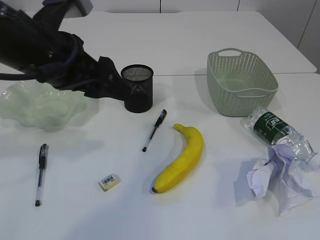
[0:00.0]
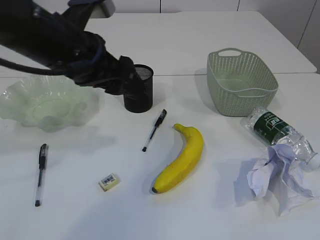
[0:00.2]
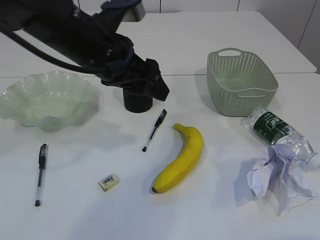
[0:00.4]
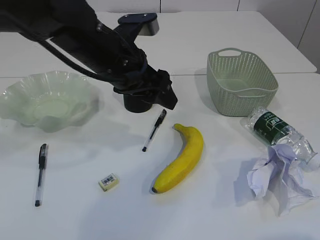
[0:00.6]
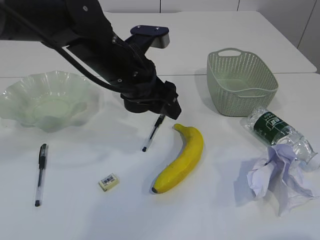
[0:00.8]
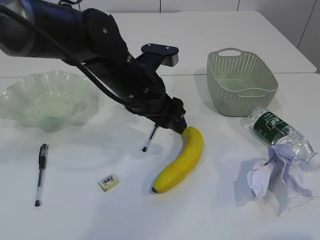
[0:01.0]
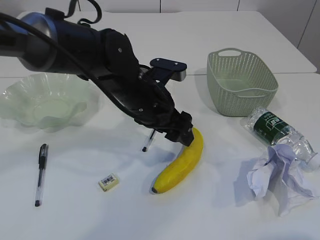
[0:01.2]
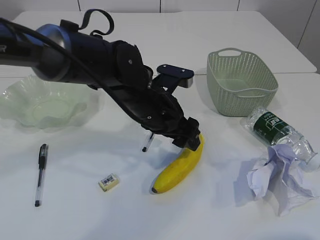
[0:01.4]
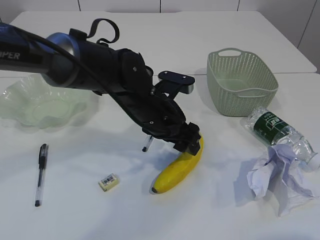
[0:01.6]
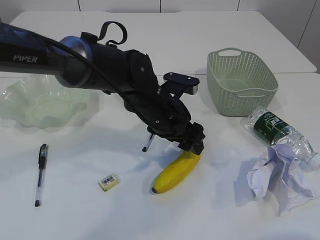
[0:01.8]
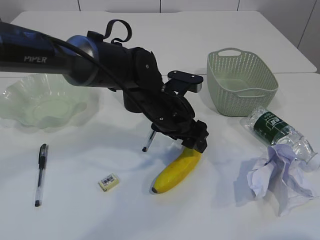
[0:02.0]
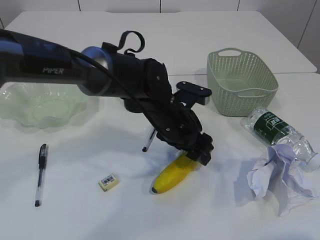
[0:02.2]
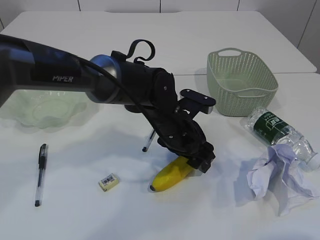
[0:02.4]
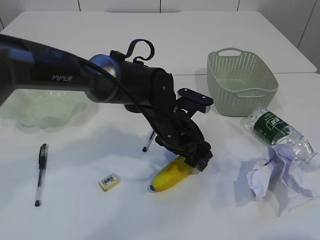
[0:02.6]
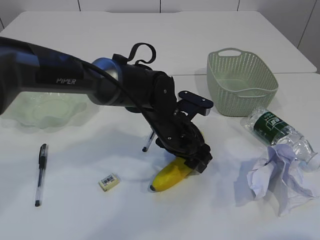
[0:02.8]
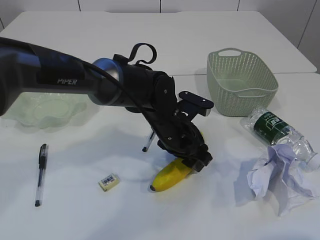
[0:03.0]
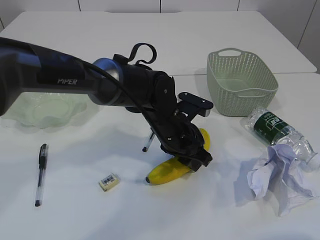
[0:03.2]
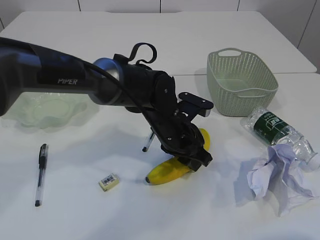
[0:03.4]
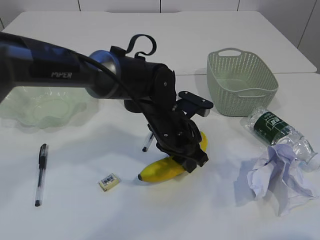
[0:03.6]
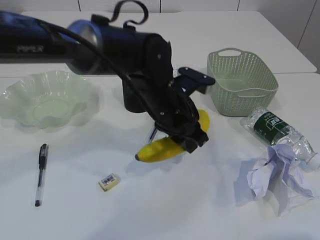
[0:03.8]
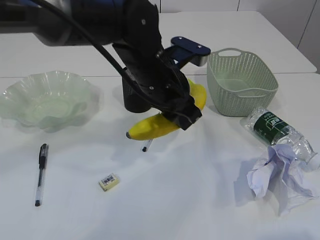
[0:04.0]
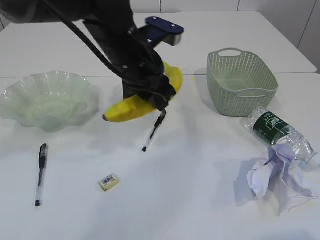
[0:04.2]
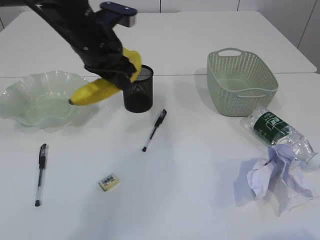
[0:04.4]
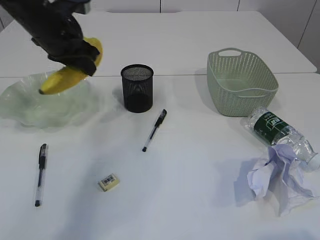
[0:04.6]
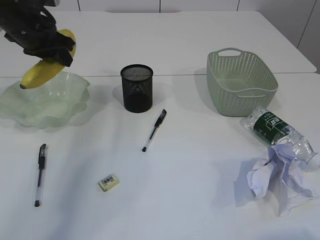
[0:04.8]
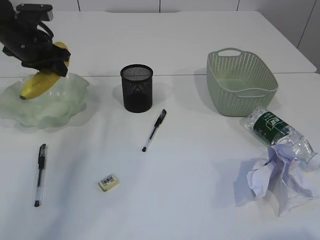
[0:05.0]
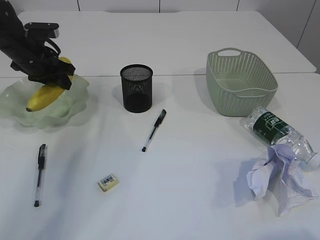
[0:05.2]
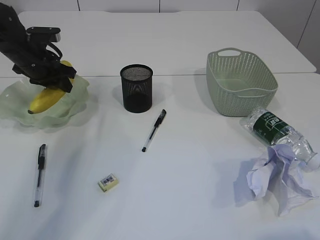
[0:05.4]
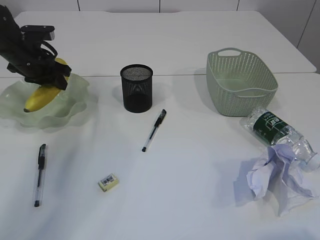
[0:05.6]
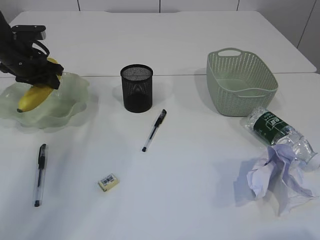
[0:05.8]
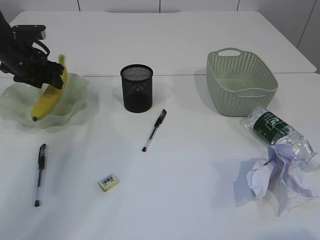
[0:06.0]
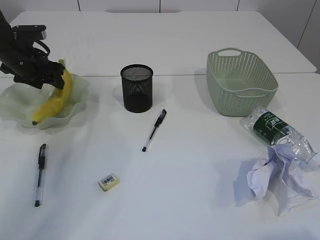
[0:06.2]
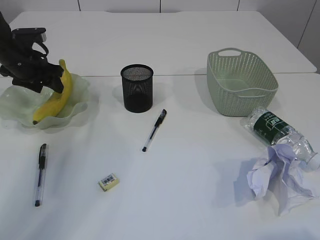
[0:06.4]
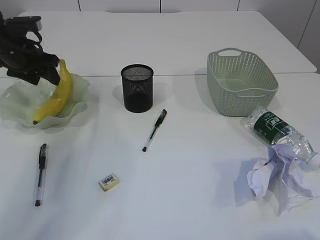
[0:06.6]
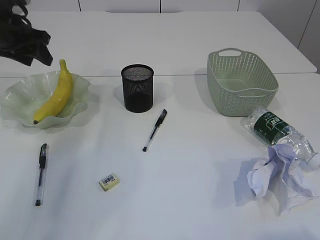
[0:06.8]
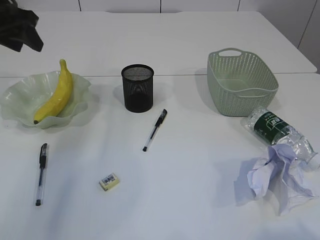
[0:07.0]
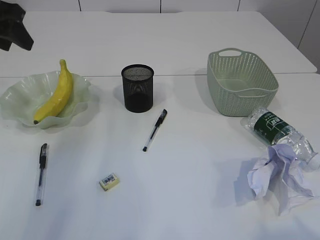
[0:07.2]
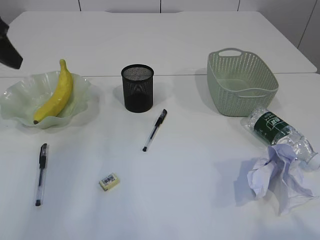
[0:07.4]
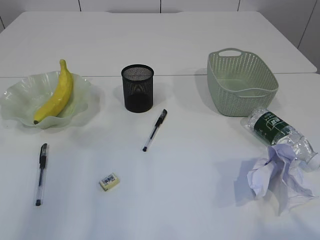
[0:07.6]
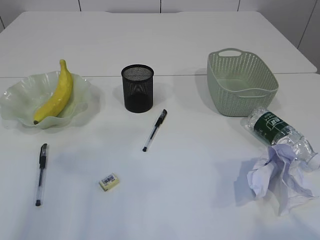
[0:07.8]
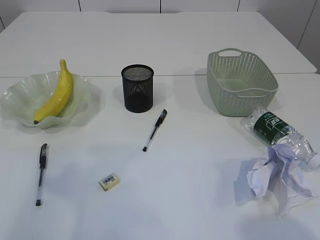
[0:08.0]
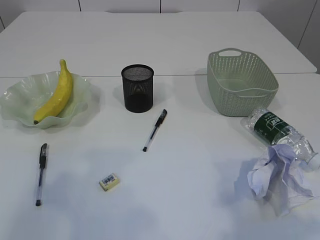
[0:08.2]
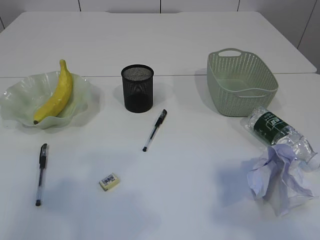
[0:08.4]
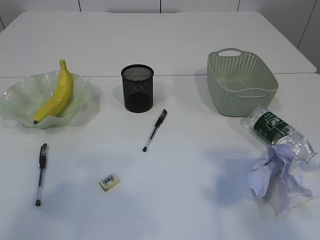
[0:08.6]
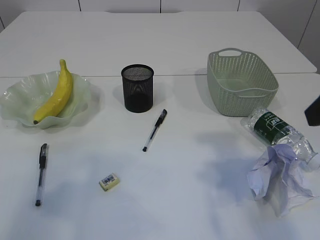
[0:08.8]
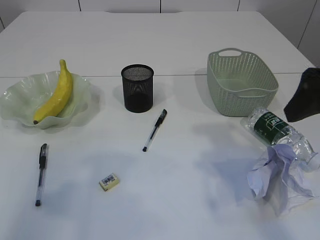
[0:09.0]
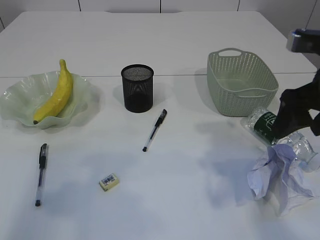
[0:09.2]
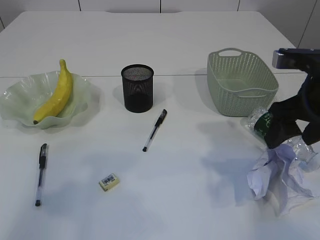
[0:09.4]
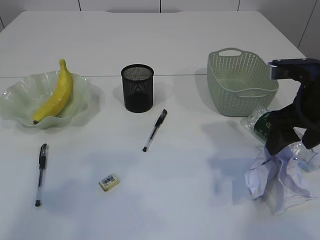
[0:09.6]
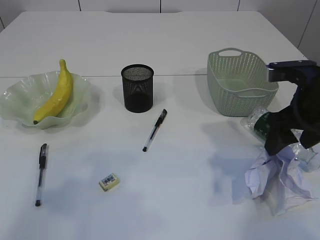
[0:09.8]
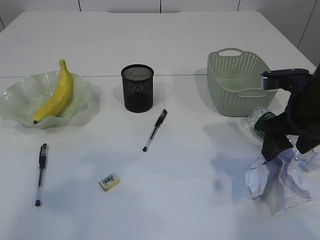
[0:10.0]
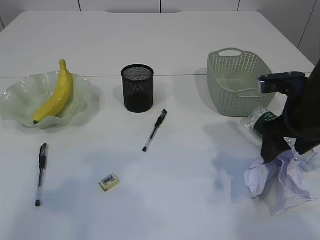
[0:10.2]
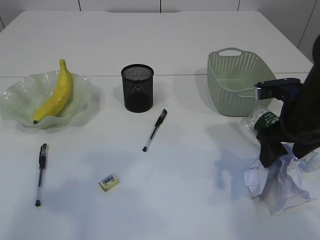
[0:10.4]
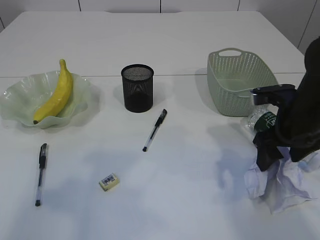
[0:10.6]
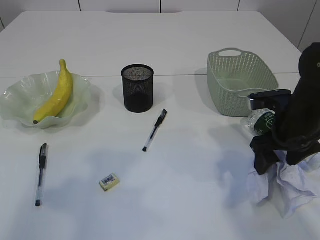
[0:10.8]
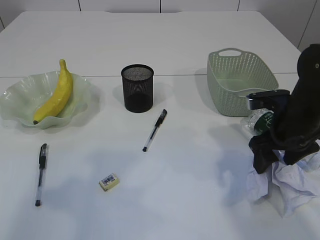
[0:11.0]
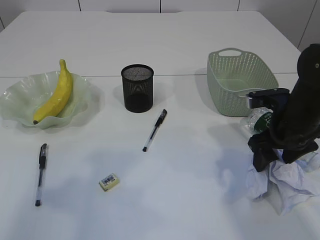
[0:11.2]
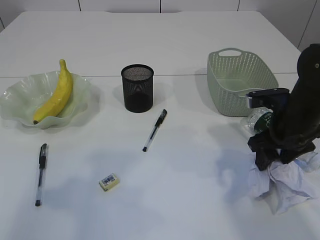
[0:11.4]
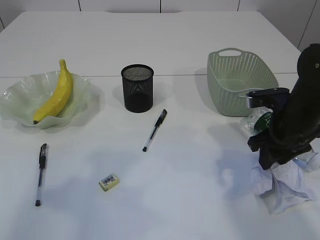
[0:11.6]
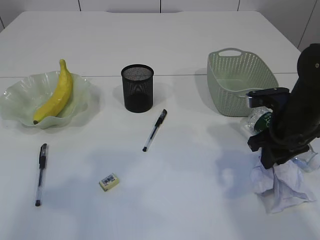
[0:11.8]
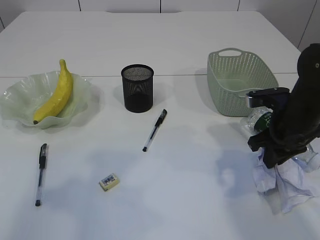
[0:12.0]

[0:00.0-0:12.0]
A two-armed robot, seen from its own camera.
Step, 0:04.2 to 0:06.6: Place the banana in the plate.
0:00.0 to 0:01.6: The left gripper moves downward, to the right and forward, roughly 20 cm.
0:01.6 to 0:03.0: The left gripper changes place by approximately 5 cm.
0:03.0 to 0:04.4: The left gripper heads upward and to the left, covering some 20 cm, and closes.
0:04.4 to 0:06.0: The left gripper shifts approximately 20 cm to the left and forward.
0:06.0 to 0:07.6: The left gripper moves backward and upward, about 30 cm.
0:07.6 to 0:09.0: The right gripper is displaced forward by about 20 cm, while the left gripper travels backward by some 15 cm.
0:09.0 to 0:10.4: The right gripper is displaced downward and forward by about 15 cm.
0:10.4 to 0:12.0: The right gripper closes.

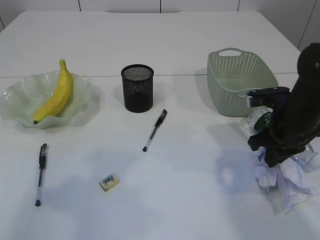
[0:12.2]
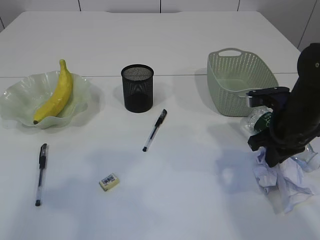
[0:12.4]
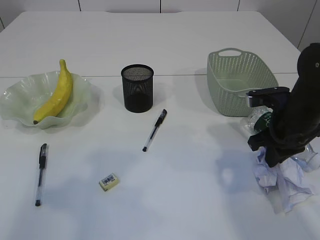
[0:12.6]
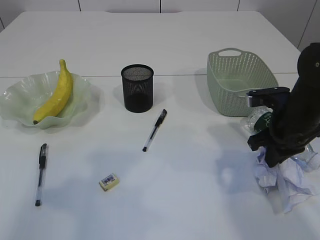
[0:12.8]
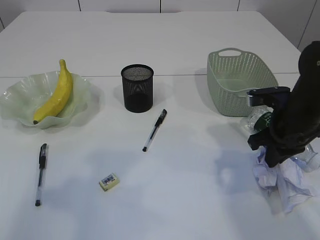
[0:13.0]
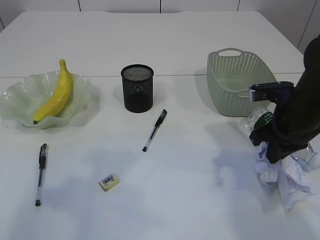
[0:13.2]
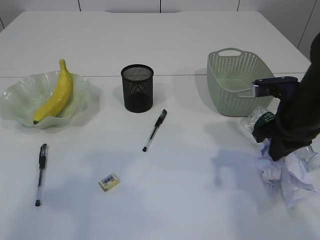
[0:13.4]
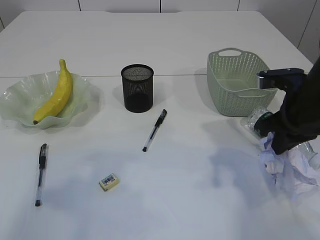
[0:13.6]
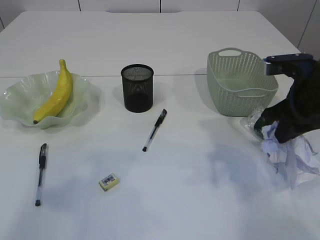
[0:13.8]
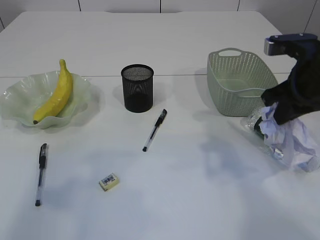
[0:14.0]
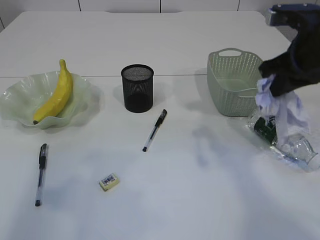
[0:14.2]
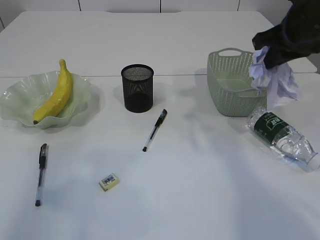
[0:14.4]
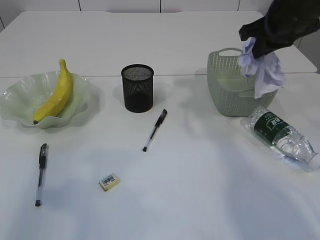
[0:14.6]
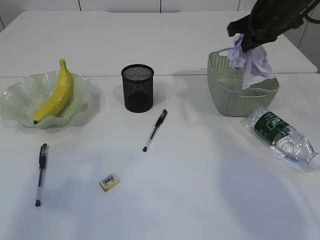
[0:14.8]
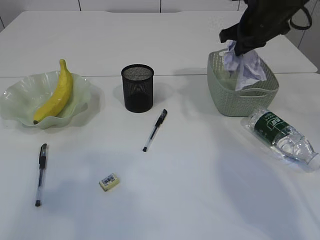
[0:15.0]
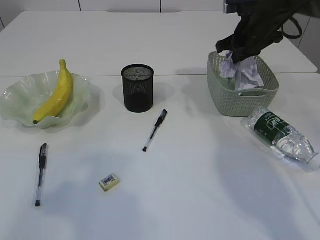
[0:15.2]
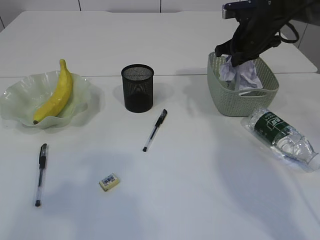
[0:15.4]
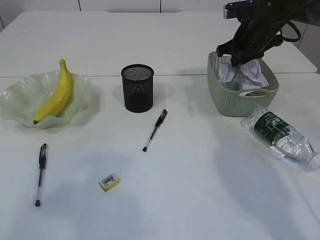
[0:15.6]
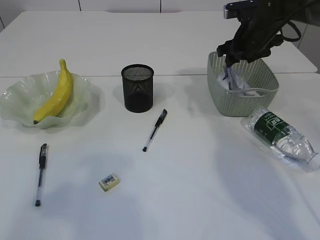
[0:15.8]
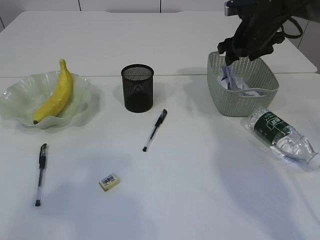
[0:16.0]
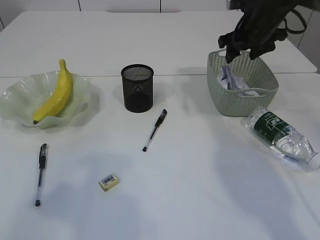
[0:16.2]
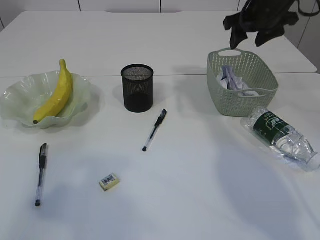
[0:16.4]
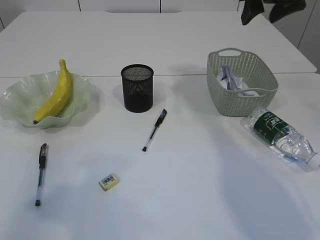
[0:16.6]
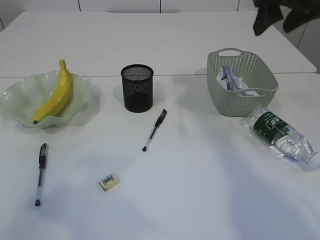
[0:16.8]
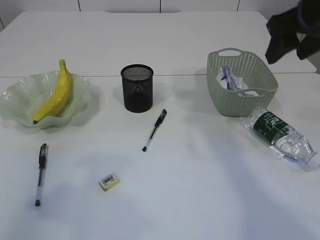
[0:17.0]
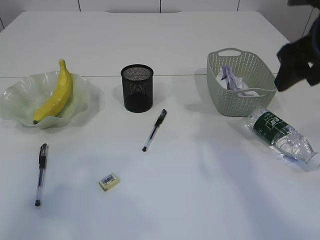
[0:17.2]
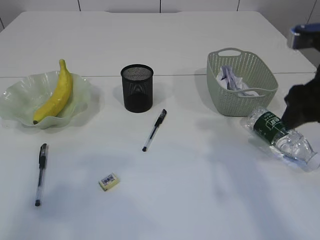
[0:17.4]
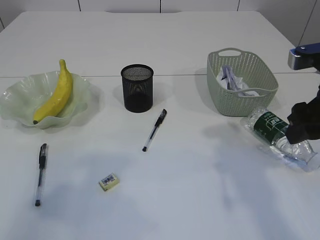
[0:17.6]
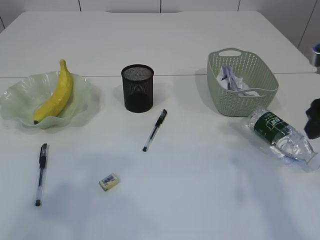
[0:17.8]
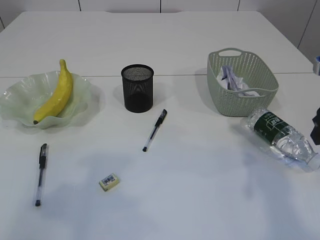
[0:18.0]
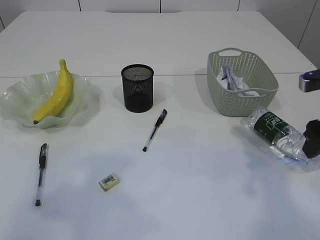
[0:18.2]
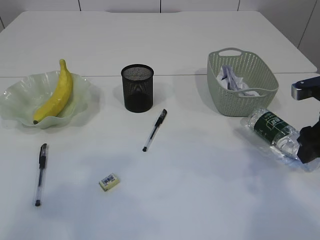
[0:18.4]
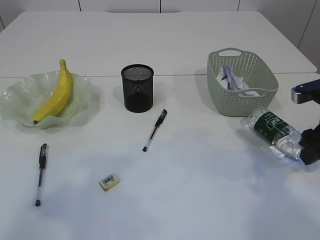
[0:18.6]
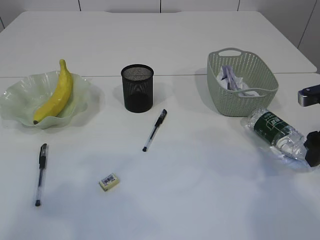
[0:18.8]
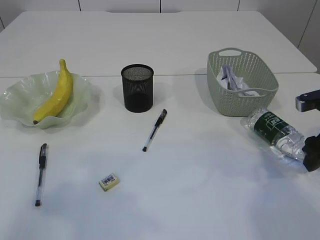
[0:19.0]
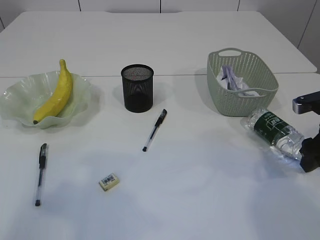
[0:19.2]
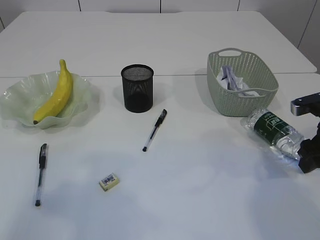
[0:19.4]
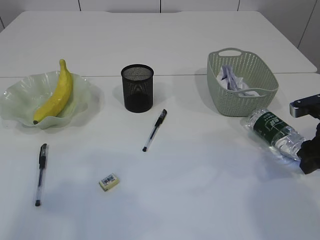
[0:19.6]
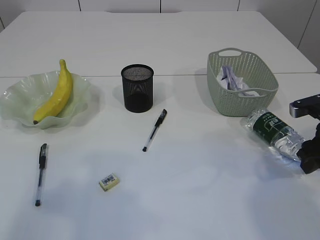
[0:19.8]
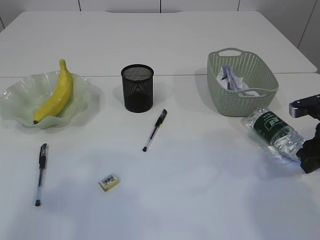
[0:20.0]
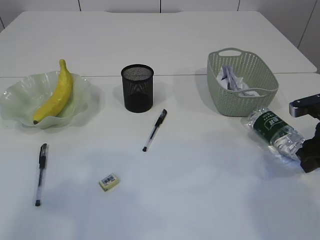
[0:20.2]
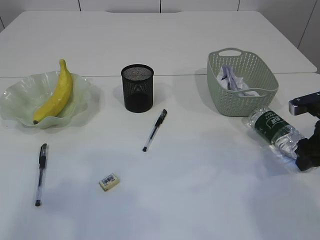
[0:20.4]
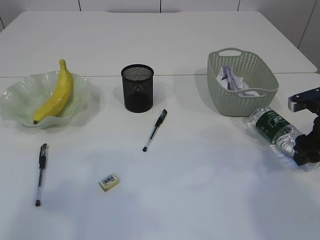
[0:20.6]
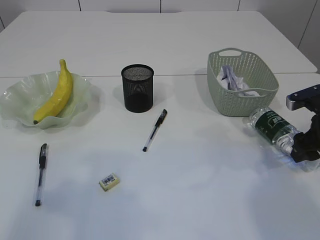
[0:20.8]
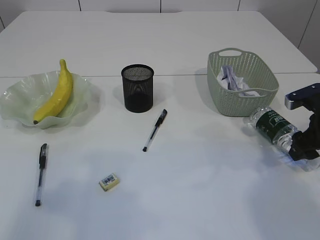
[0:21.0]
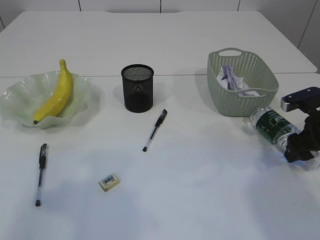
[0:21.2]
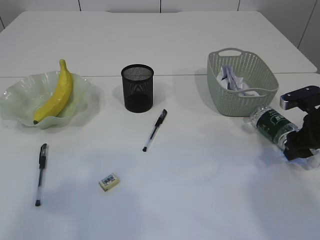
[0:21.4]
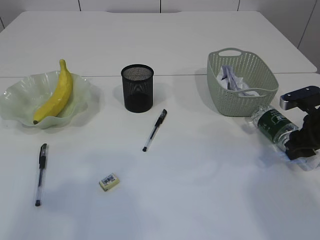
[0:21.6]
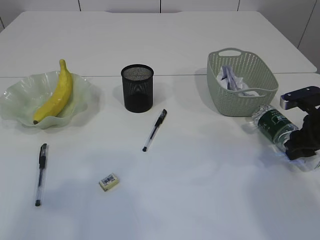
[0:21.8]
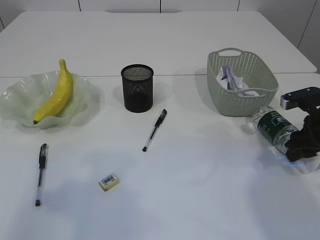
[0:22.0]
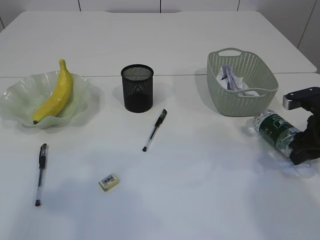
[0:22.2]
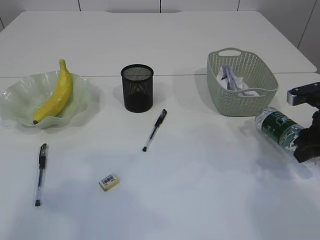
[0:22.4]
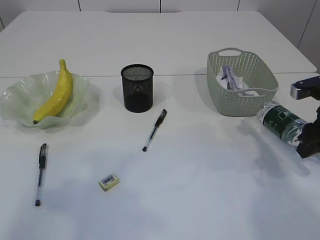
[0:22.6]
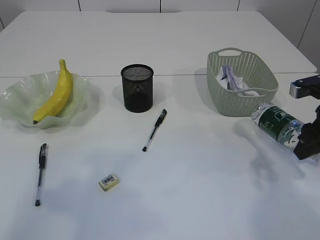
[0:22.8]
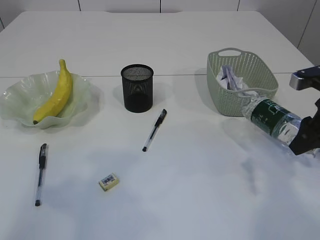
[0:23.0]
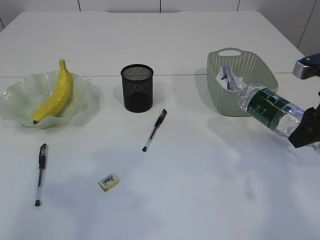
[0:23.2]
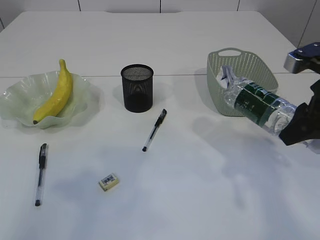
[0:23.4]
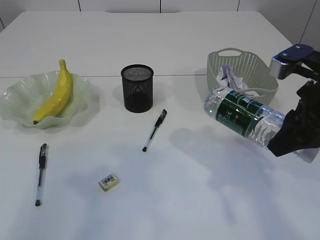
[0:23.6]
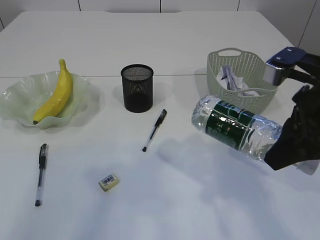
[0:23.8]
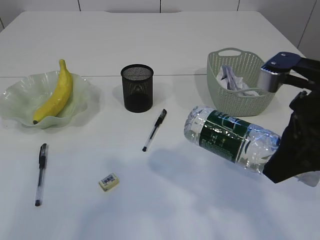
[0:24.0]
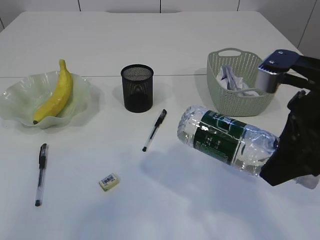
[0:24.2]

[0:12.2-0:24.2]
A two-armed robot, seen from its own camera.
Step, 0:12.2 to 0:14.2: Pick up the waste paper.
Step, 0:14.4 to 0:16.2: Place the waste paper in the basket.
Step, 0:16.4 to 0:23.0: Pick up the bottle with the right arm.
0:12.2 to 0:13.8: The right gripper travels upward by roughly 5 cm.
0:13.8 to 0:15.2: The right gripper shifts approximately 20 cm forward.
0:15.2 to 0:16.6: The right gripper goes some 10 cm upward and backward, and opens its fingers.
0:16.6 to 0:18.2: The right gripper heads backward, downward and to the right, covering some 20 cm.
0:18.2 to 0:19.8: The right gripper shifts some 5 cm downward.
0:19.8 to 0:21.2: The grippers stay close to where they were, moving slightly.
0:21.2 to 0:22.6: The right gripper shifts by approximately 5 cm, and closes up.
0:22.6 to 0:24.2: The right gripper is displaced to the left, upward and backward by approximately 20 cm.
